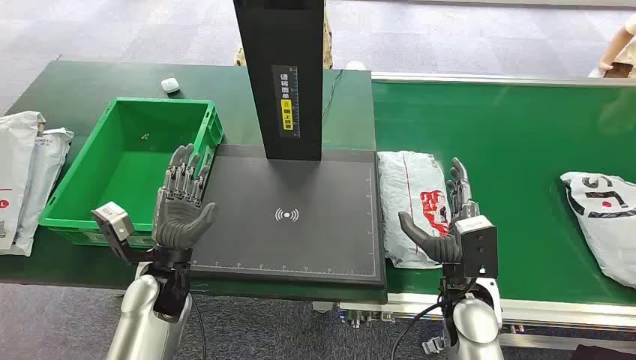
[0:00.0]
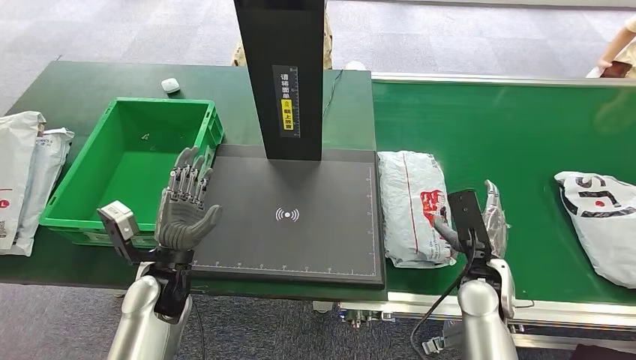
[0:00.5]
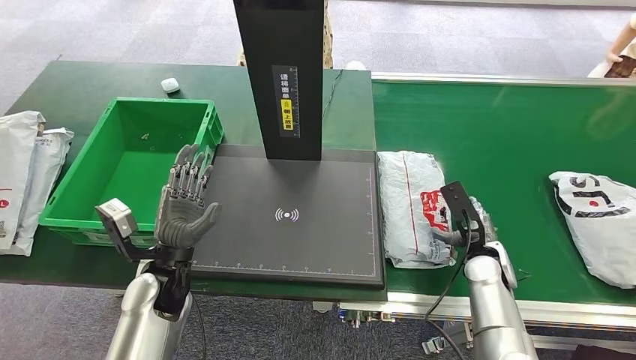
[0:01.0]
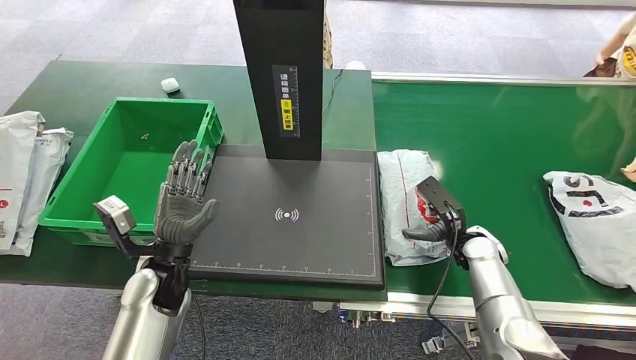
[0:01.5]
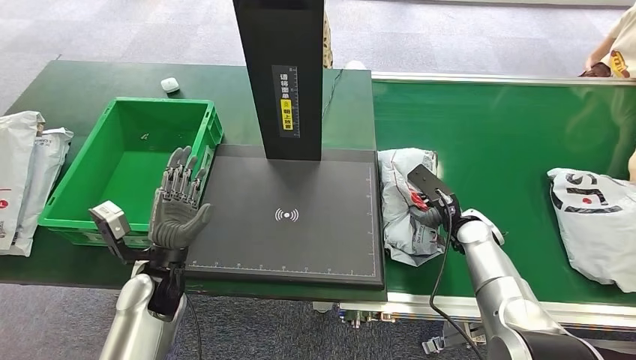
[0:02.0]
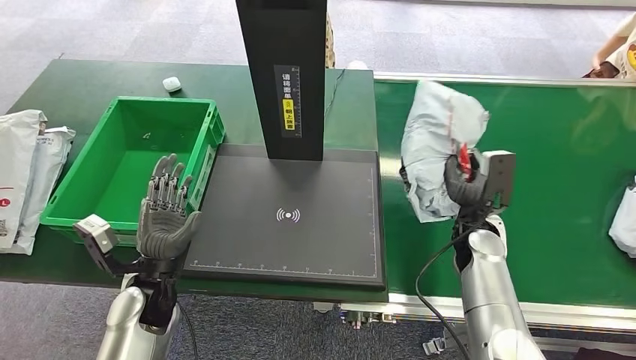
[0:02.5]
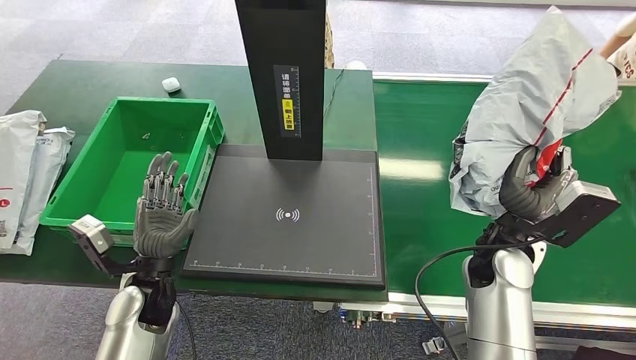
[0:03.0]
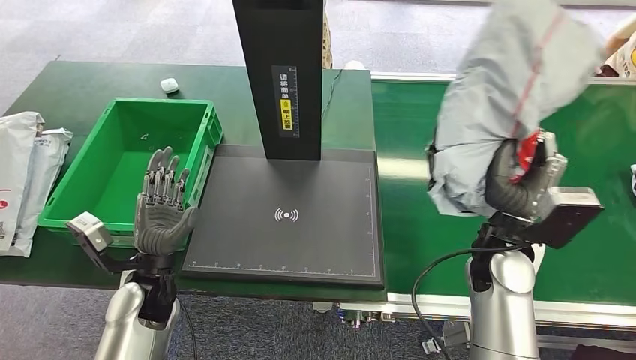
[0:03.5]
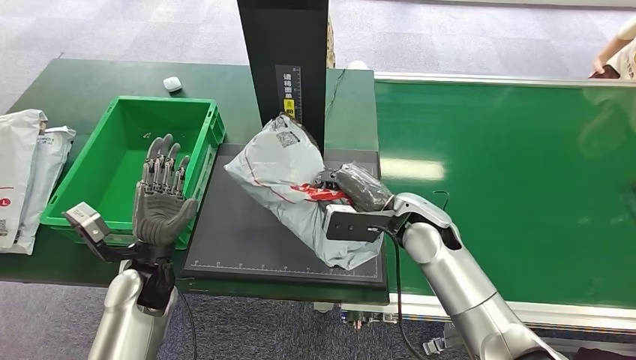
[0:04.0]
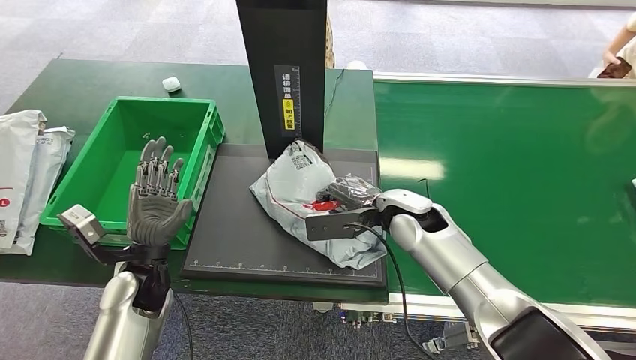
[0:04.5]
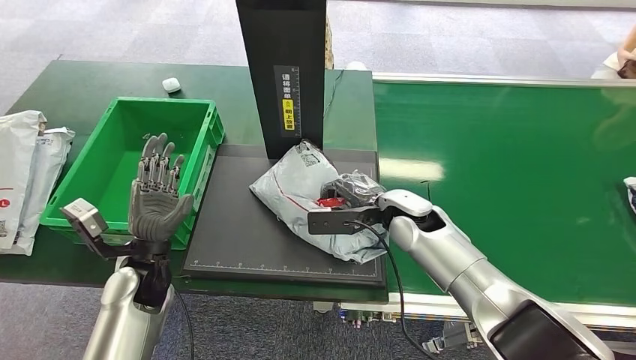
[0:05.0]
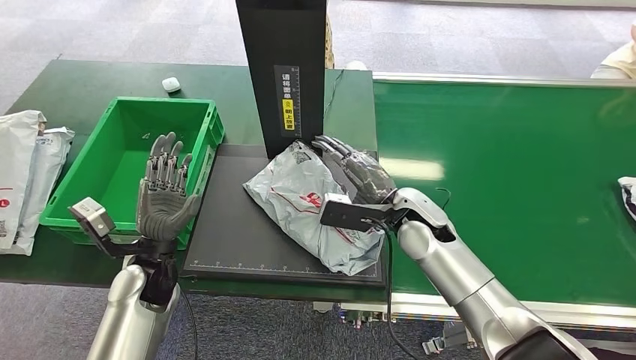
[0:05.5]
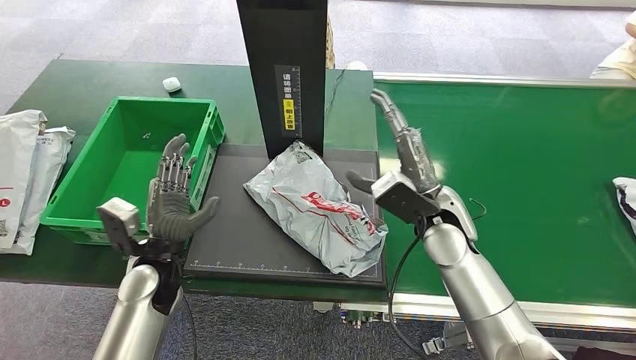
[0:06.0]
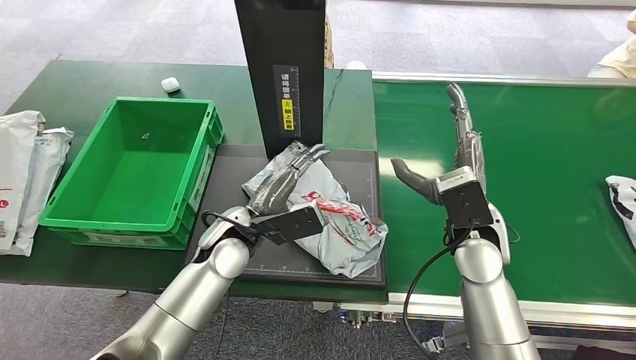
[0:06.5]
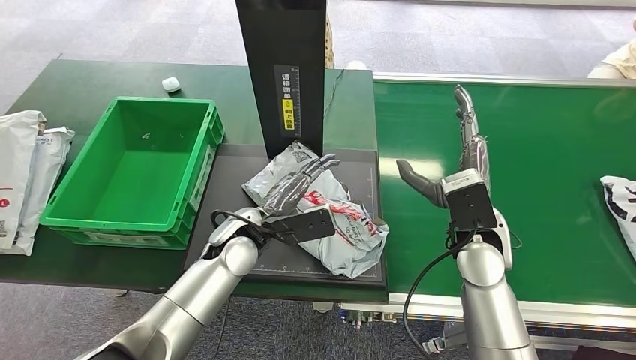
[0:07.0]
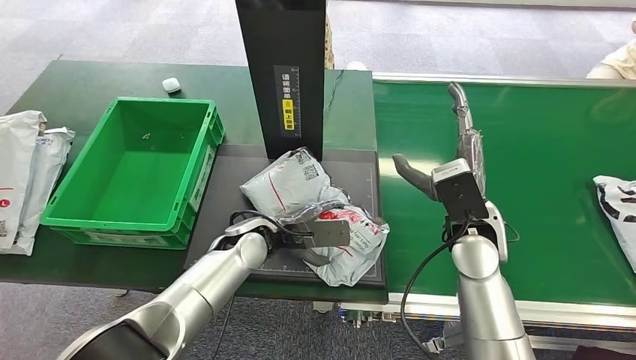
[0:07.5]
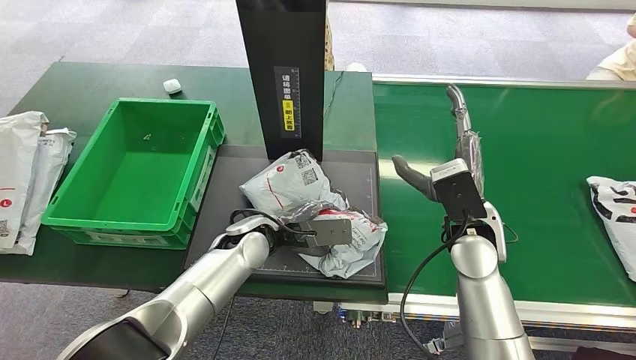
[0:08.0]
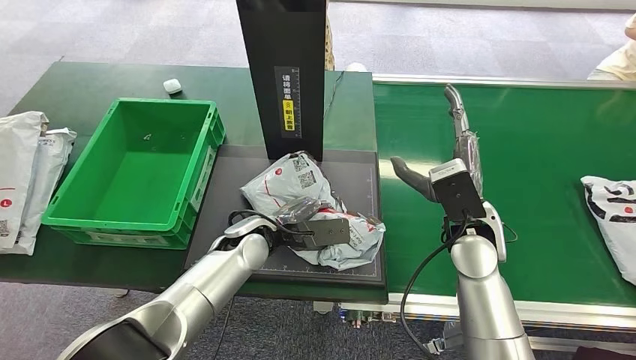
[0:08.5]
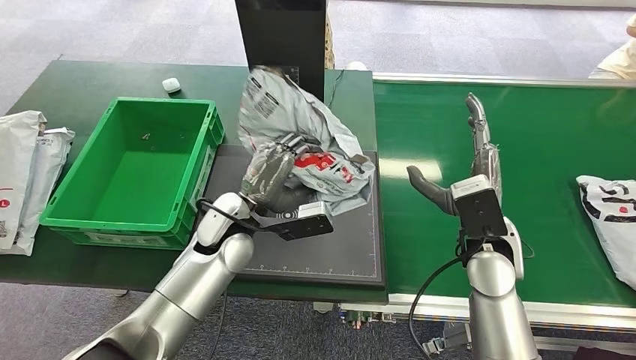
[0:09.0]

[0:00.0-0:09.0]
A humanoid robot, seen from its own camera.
Task of the whole recording: Weigh the package on the weighing device and place it in the left basket.
Step, 0:00.0 to 0:02.5: Pick up the package from the conveyor belt.
Step, 0:03.0 to 0:06.0: Place the package onto the inbound machine.

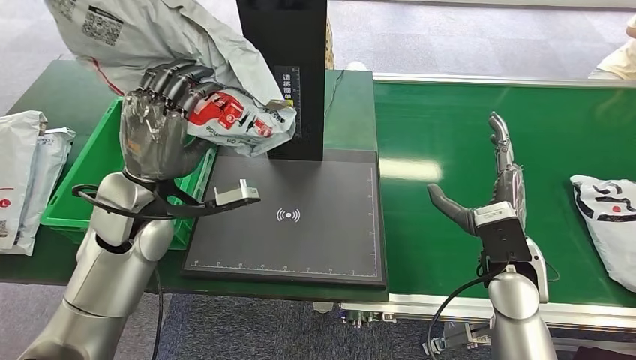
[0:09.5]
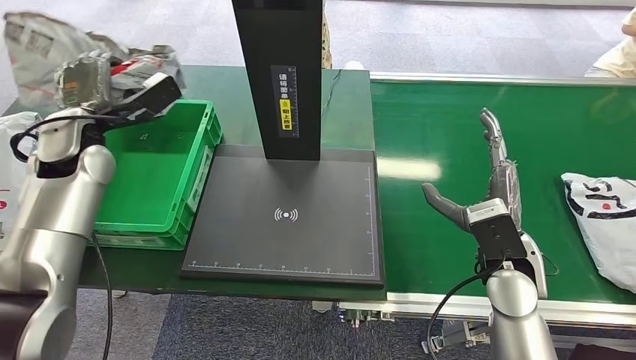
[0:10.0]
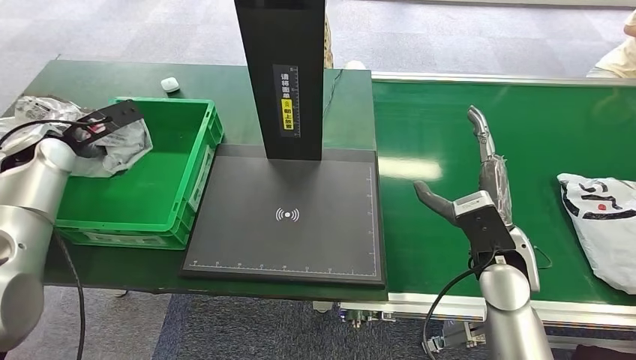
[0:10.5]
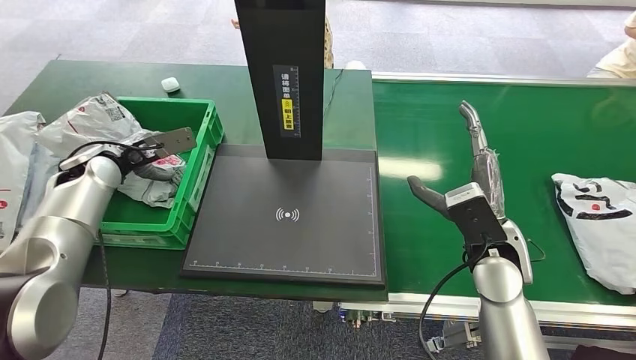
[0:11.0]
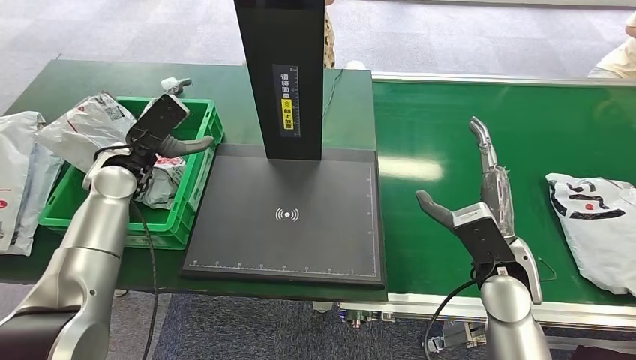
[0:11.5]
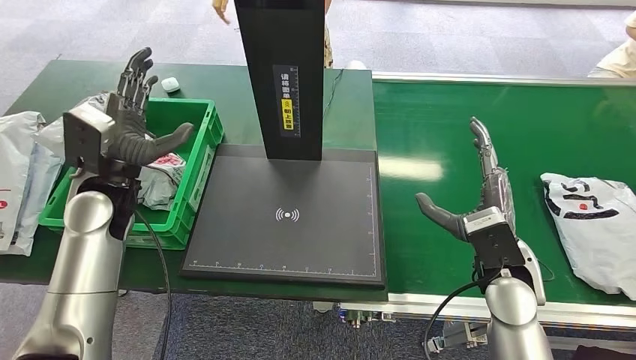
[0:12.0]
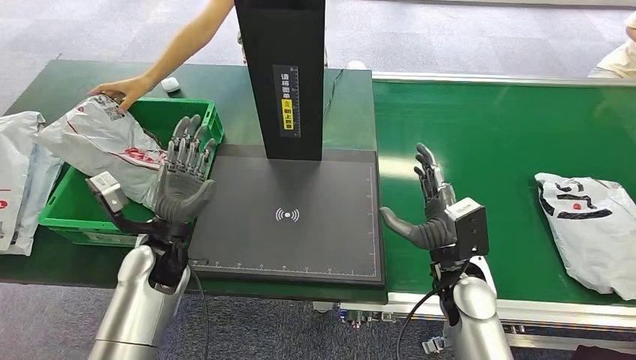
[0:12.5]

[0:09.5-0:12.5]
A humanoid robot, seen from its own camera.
Task of the whole recording: Weigh the package on the weighing device and place it in the left basket.
Step, 0:10.0 to 0:12.5: Place the package into the parcel locker.
